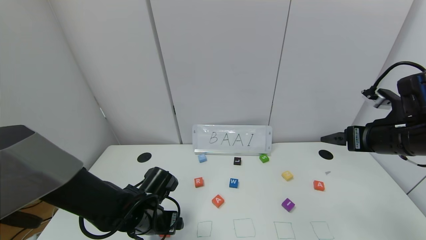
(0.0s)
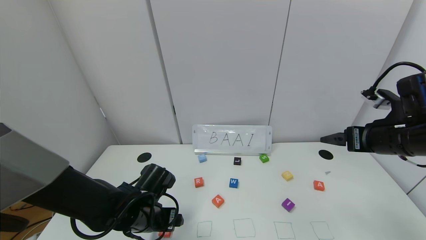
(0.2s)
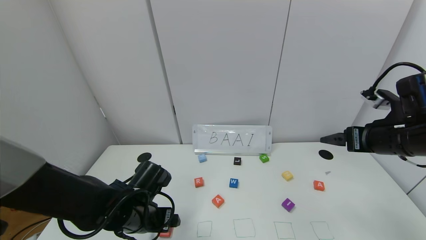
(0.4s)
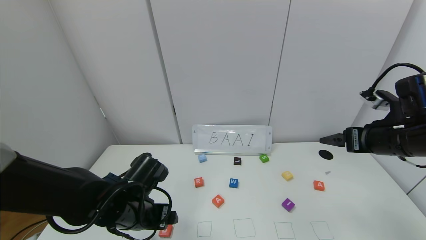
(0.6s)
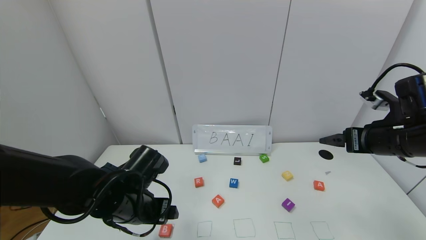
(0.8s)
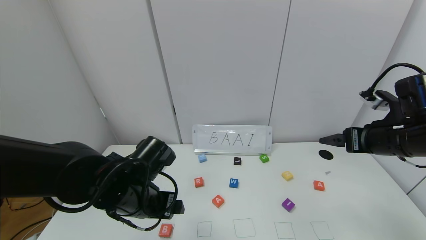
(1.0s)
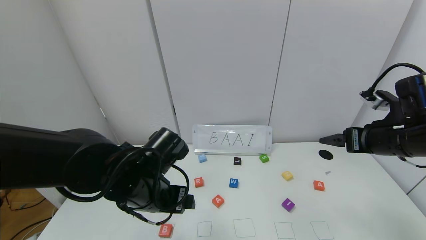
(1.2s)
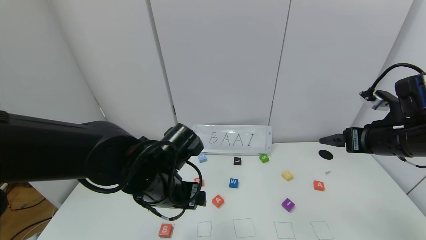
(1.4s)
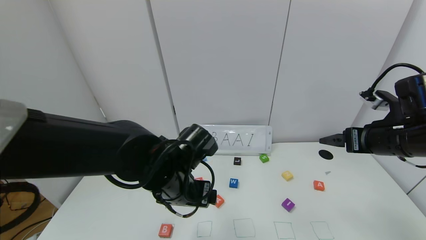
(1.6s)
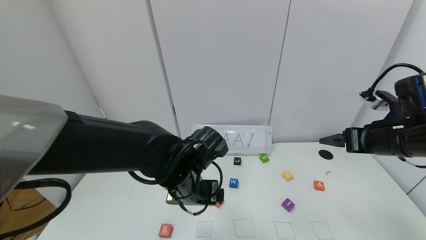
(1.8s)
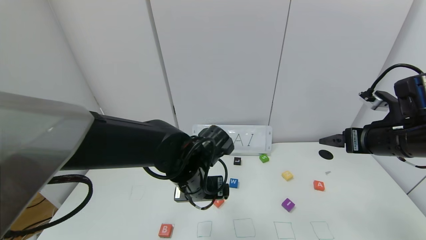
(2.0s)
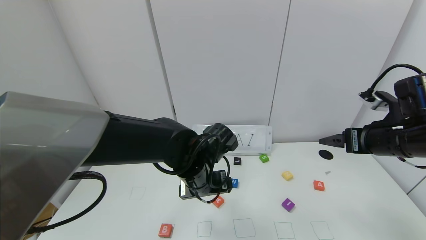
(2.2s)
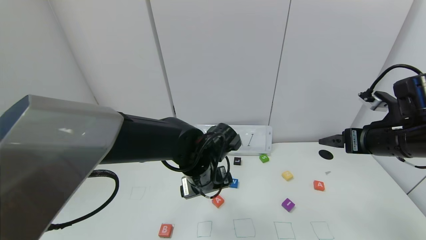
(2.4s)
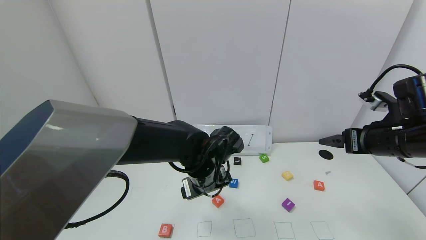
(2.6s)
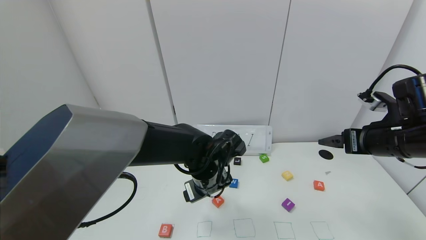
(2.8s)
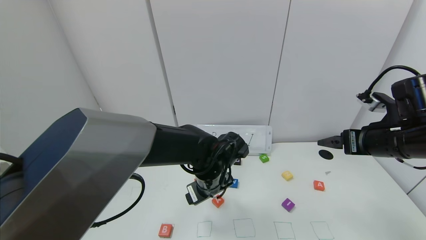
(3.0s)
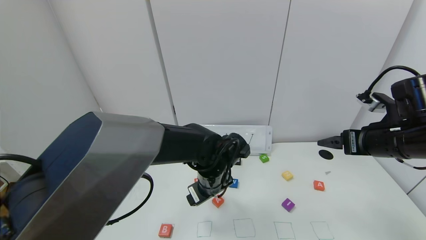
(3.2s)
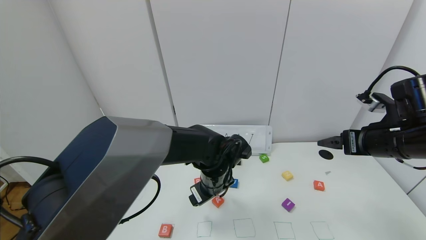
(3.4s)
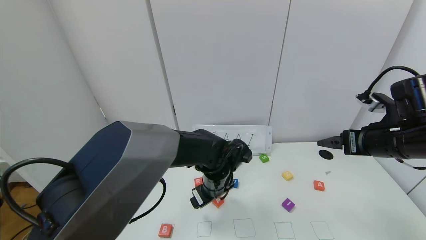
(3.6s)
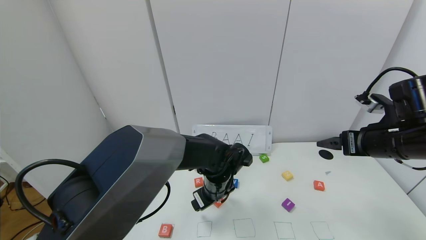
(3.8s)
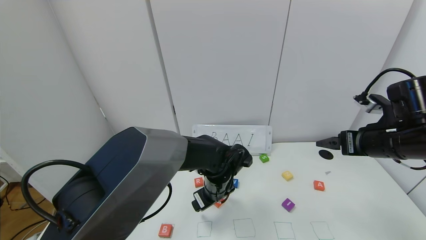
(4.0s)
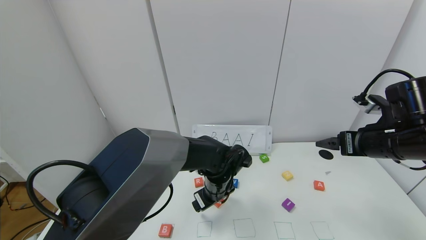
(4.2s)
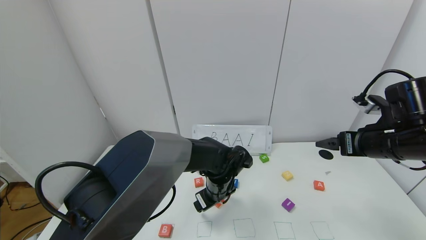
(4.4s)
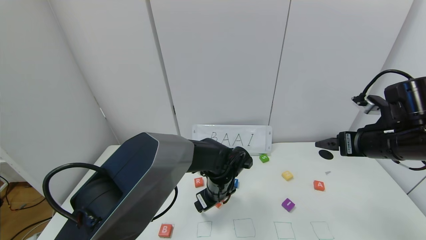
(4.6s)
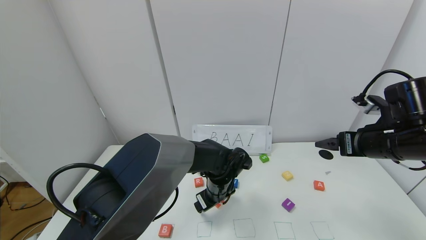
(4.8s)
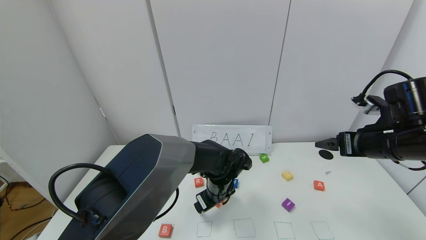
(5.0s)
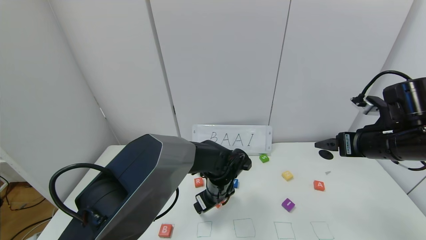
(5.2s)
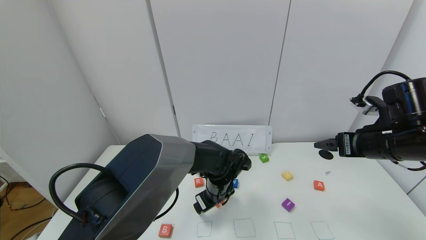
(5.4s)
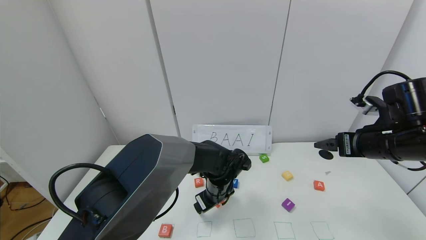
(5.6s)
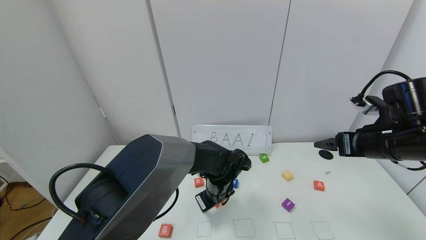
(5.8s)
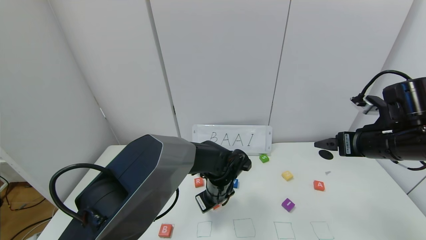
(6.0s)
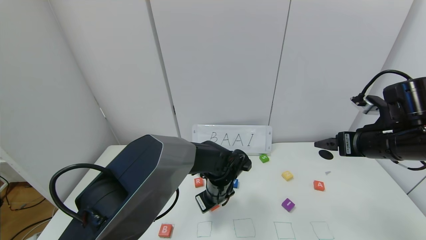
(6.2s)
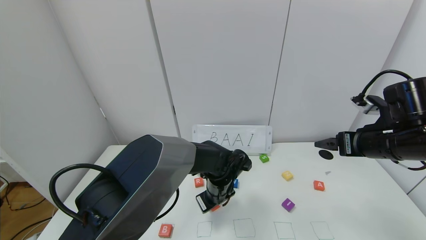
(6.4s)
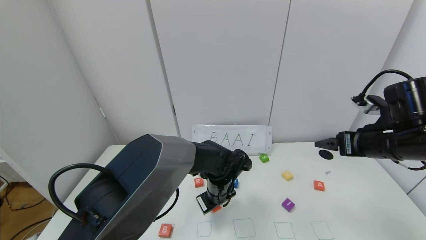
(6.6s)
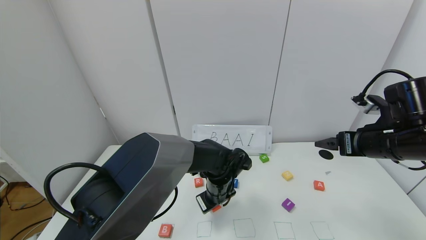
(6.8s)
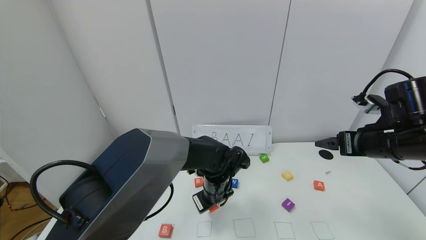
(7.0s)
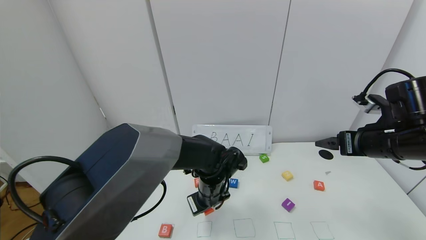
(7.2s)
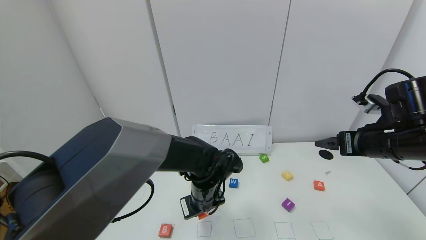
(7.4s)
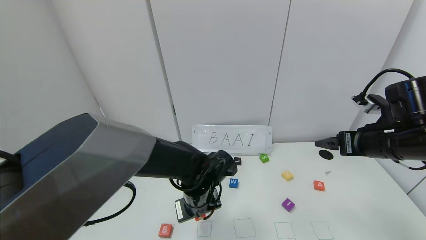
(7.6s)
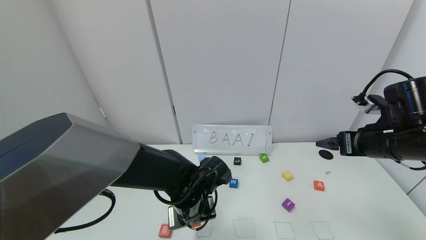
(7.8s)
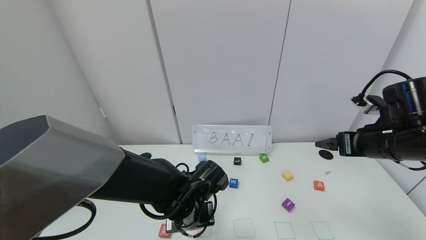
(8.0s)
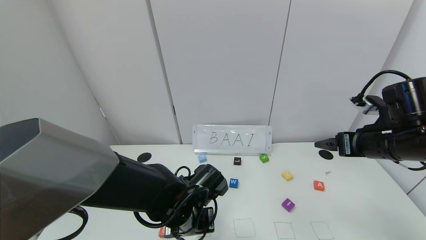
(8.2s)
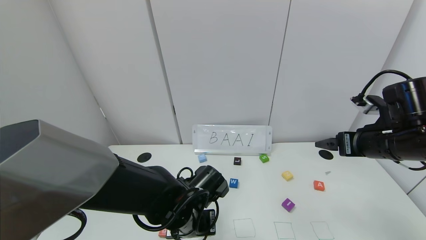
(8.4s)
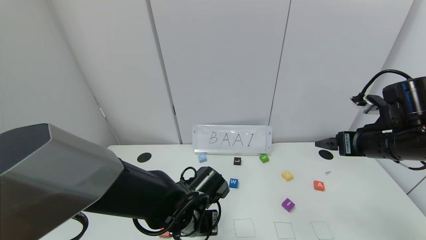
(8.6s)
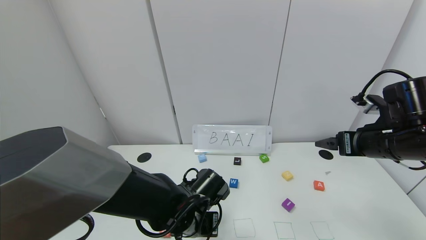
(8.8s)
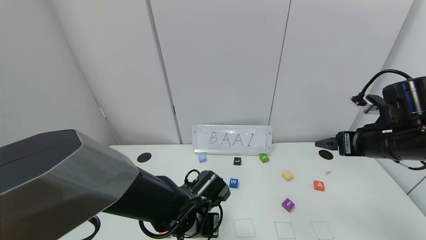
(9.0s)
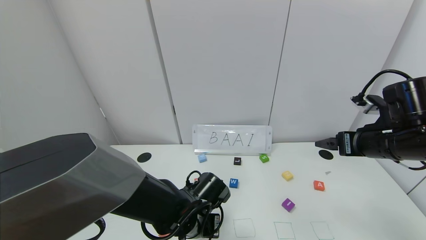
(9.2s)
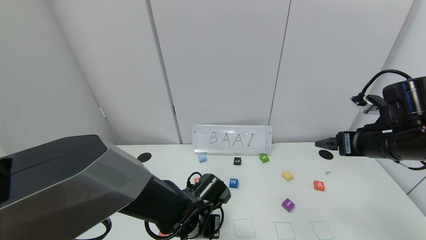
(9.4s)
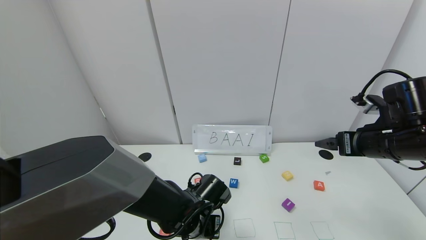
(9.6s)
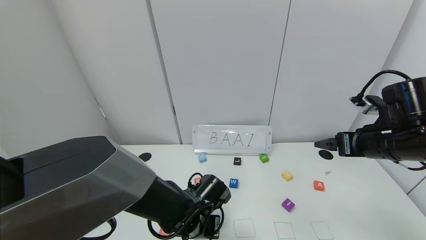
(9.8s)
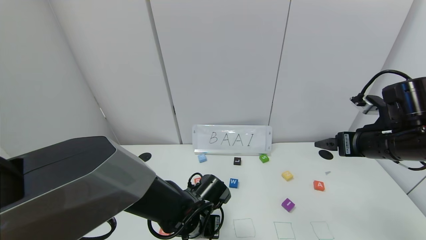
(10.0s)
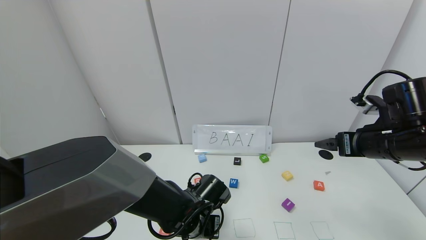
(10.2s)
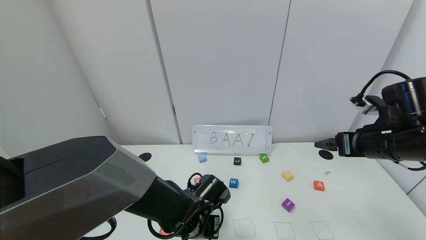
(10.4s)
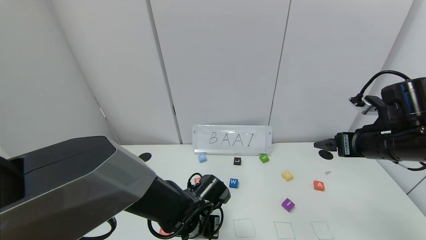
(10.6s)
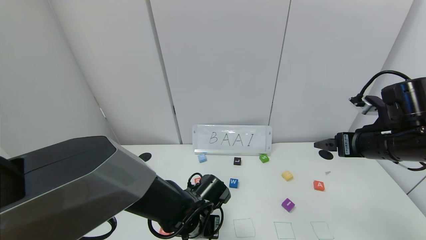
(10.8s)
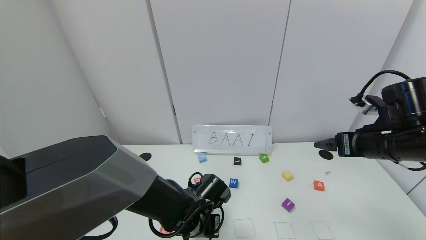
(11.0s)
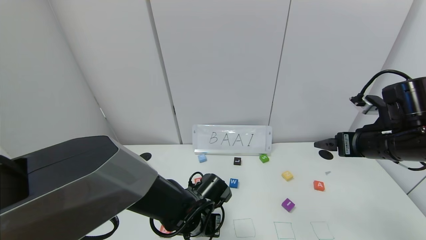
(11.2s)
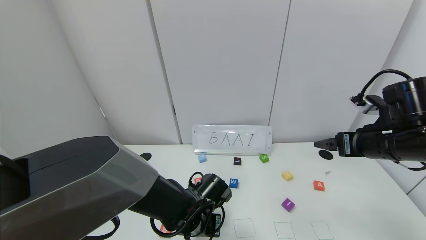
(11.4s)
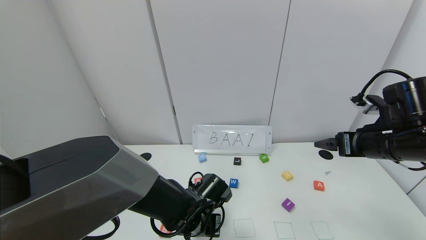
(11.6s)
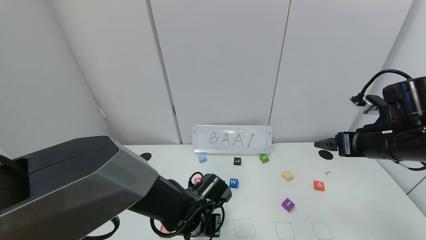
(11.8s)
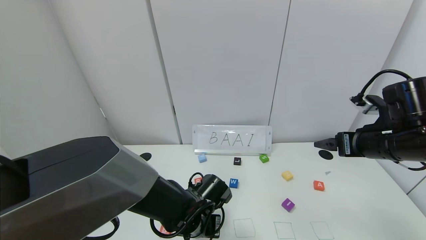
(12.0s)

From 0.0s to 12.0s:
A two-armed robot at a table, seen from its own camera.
Task of the whole recording: use the gripper to find blocks with the letters b, a, a, and i on the table and arrange them into BAAI, then find r and N and turn the arranged baai into brian.
From 0.0s to 1.6s: The left gripper travels upward and to the right by roughly 15 cm.
From 1.6s to 3.0s: The left gripper goes some 10 cm to the right and forward.
From 3.0s to 4.4s: The left gripper goes roughly 5 cm downward.
From 4.4s to 6.0s: The left gripper closes up.
From 6.0s to 7.6s: The left gripper moves backward, approximately 5 cm.
From 9.0s to 10.4s: There are only small adjustments of the grippers.
From 10.4s to 12.0s: The two grippers keep their place.

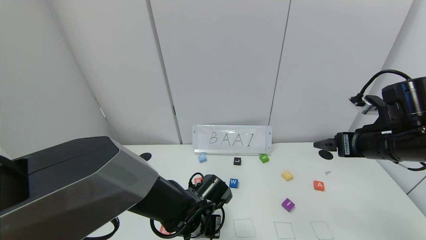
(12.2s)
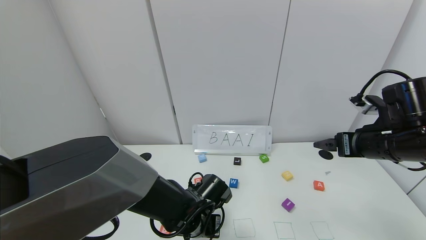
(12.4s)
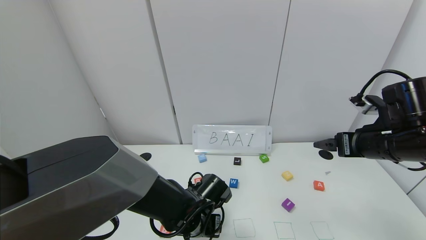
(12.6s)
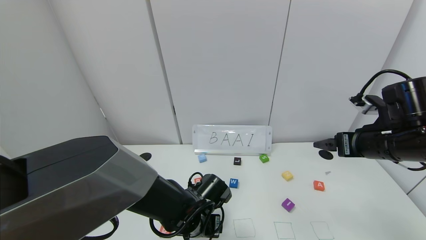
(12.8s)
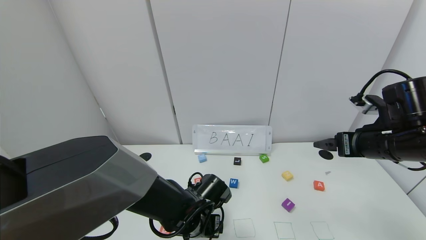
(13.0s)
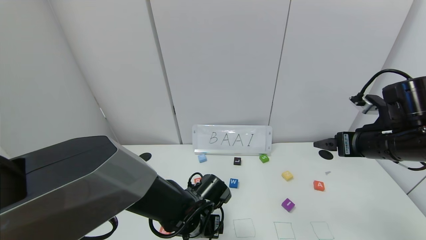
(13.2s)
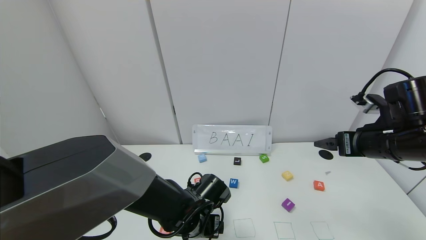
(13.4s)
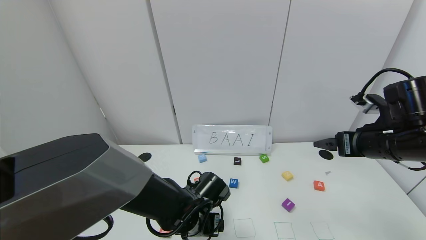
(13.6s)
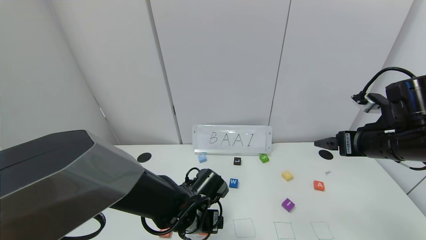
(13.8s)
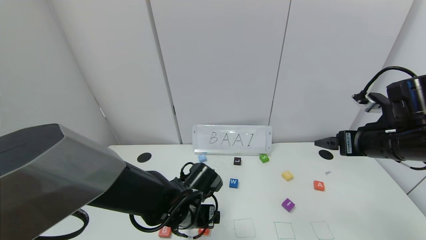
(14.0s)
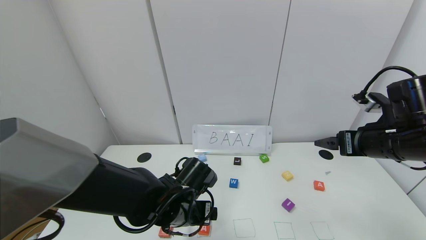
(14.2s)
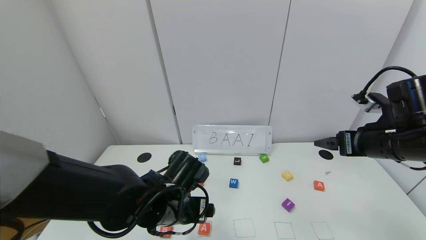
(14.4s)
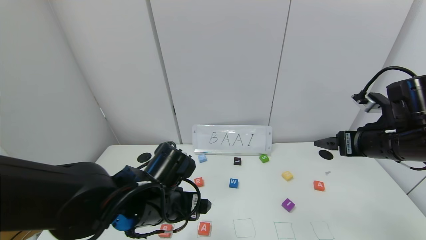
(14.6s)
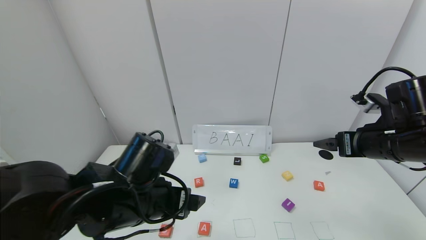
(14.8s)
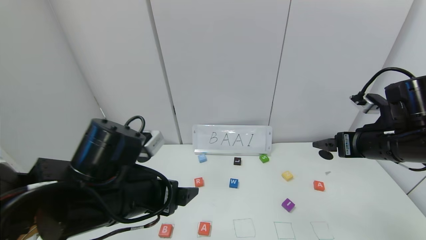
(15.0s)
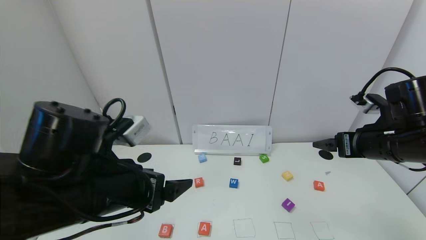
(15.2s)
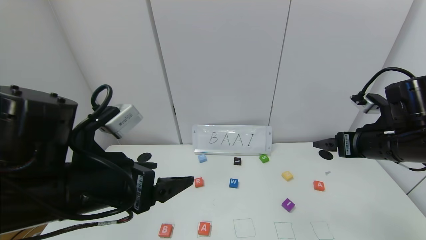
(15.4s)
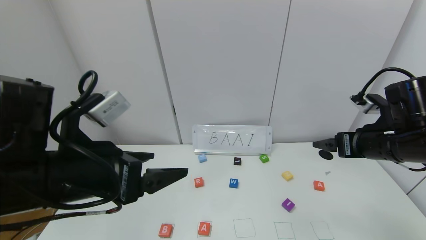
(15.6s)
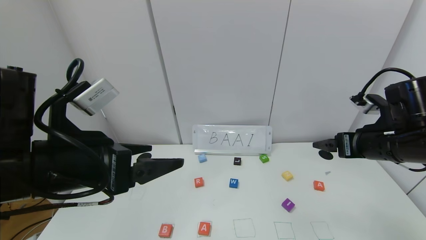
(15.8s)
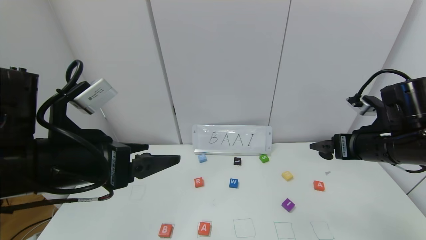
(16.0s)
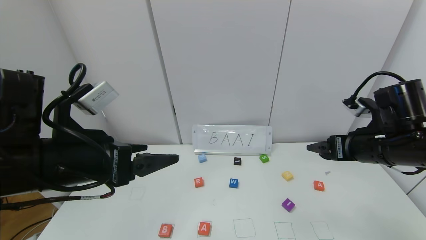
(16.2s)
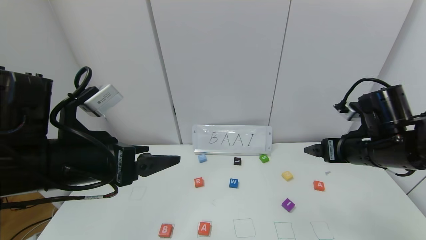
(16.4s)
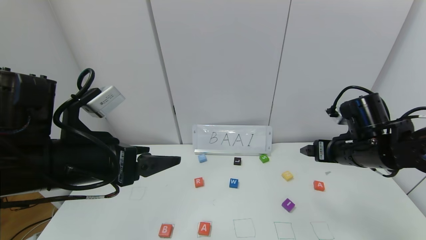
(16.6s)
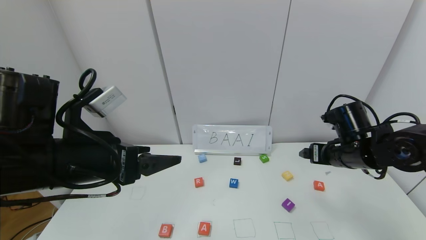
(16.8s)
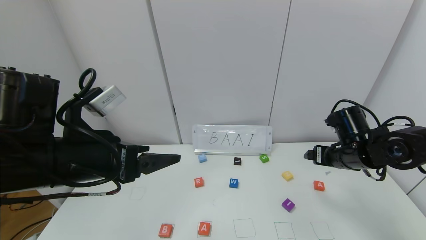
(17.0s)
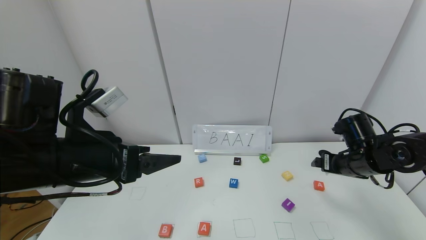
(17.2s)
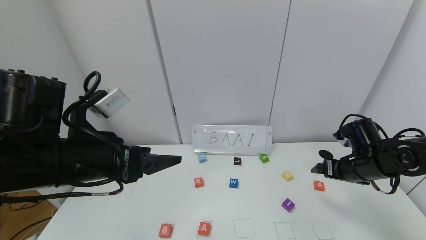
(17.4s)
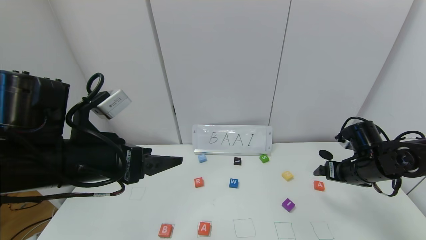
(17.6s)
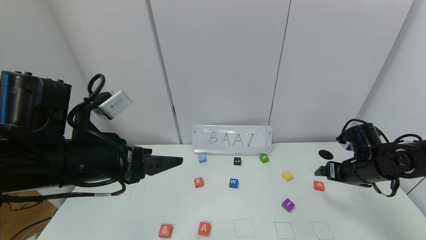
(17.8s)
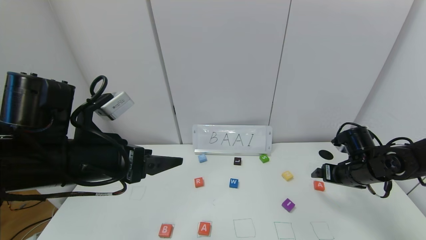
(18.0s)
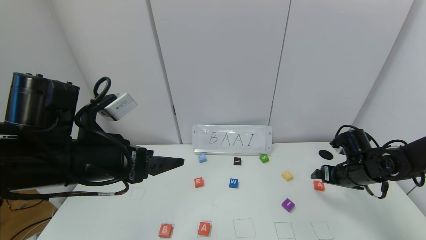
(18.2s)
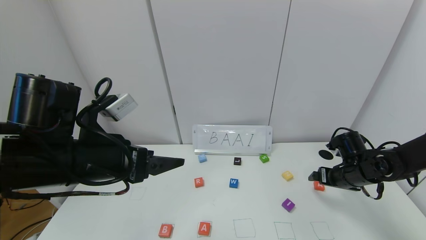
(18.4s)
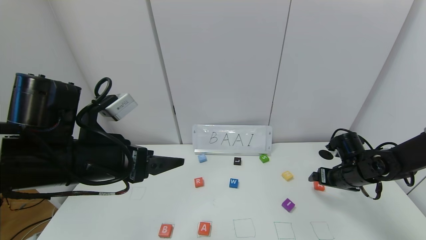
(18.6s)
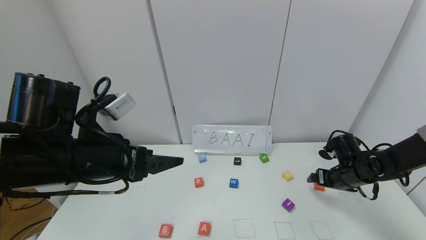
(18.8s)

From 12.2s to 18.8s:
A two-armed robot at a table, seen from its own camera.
Task of the whole recording: use the gripper to find blocks with the letters b, a, a, and i on the table and arrange them into BAAI, then find r and N and turn the arranged baai into brian.
From 12.2s to 13.8s: The left gripper opens up.
From 13.8s to 15.4s: The left gripper is displaced upward, to the left and backward by roughly 25 cm.
From 15.4s to 17.2s: The right gripper moves downward and forward, some 10 cm.
From 17.2s to 18.8s: The right gripper moves downward, roughly 5 cm.
